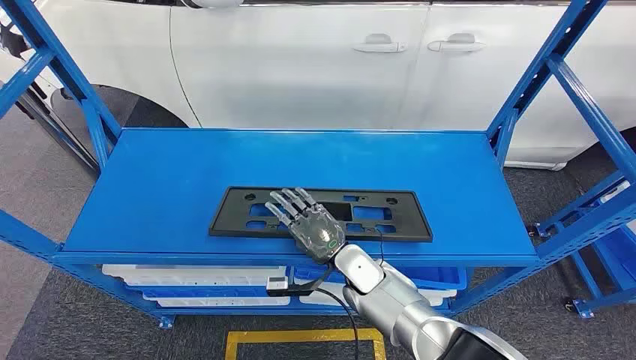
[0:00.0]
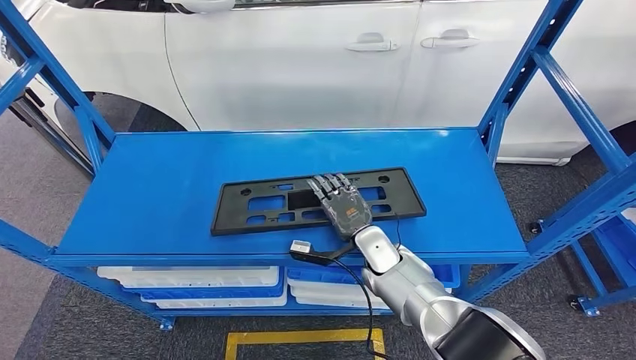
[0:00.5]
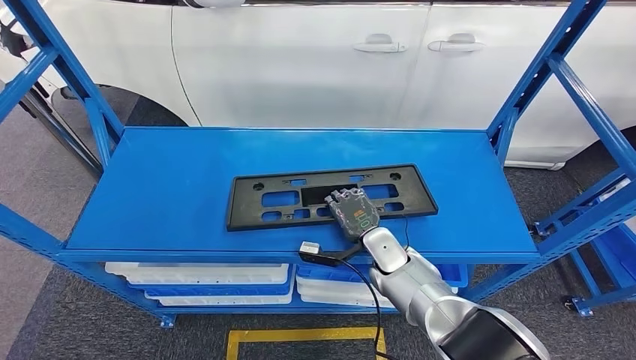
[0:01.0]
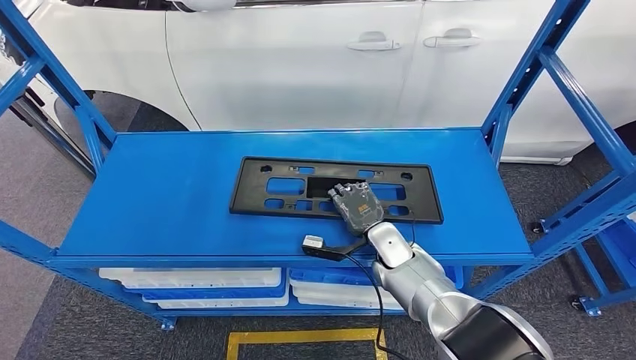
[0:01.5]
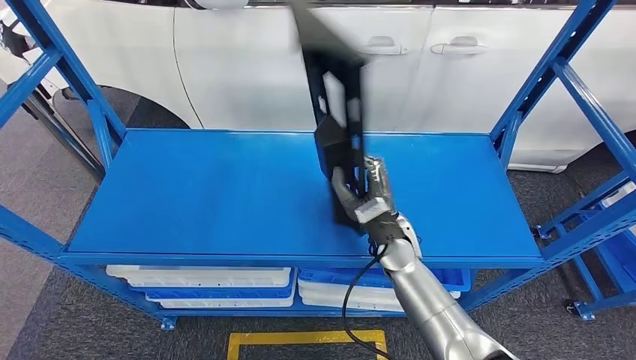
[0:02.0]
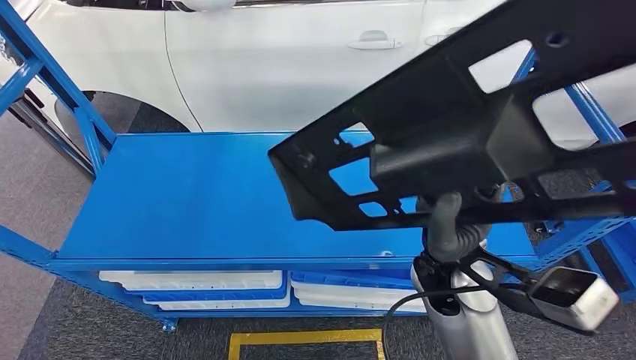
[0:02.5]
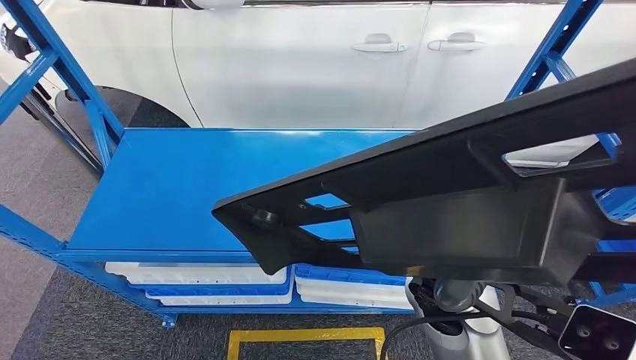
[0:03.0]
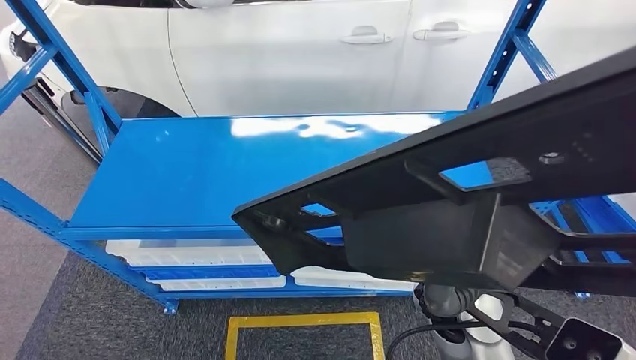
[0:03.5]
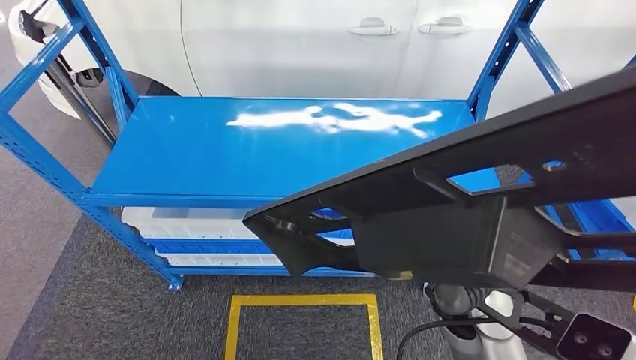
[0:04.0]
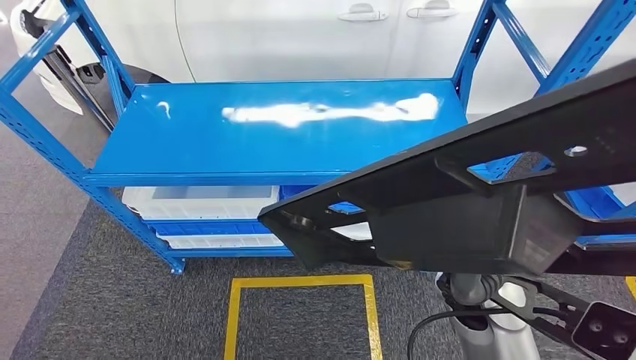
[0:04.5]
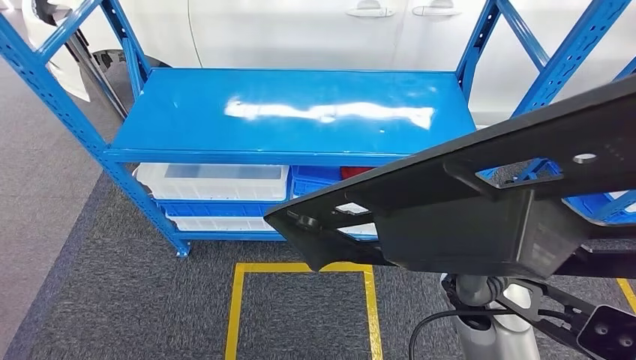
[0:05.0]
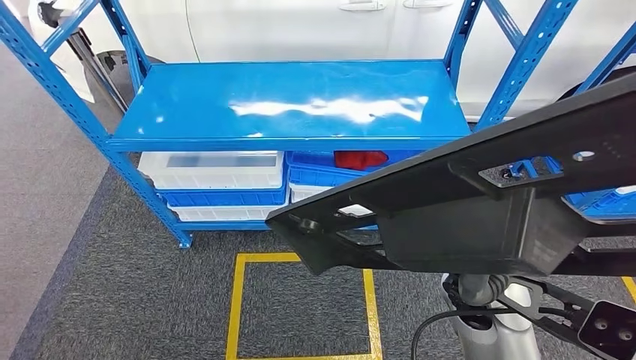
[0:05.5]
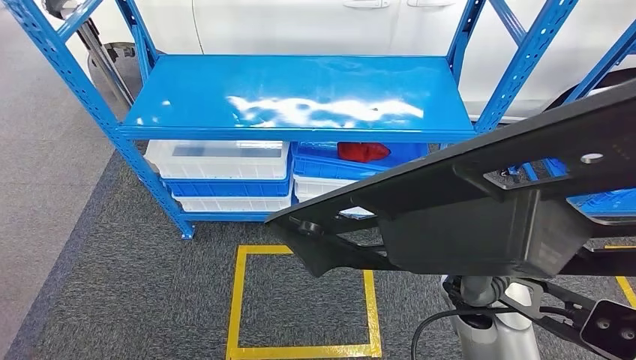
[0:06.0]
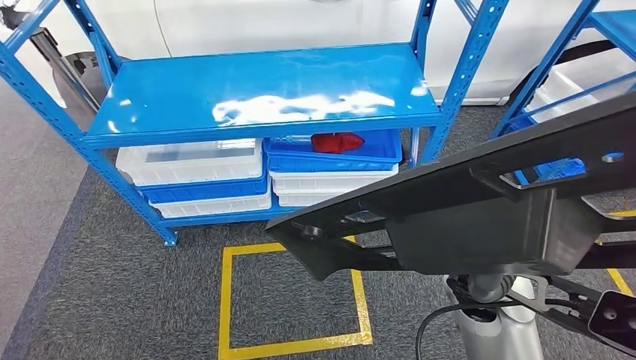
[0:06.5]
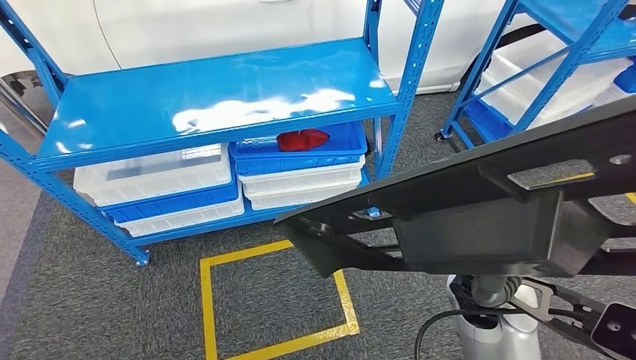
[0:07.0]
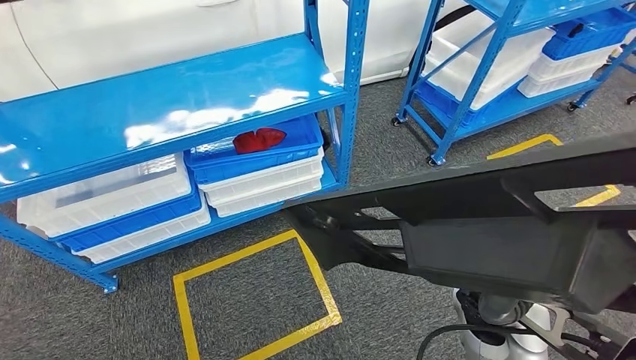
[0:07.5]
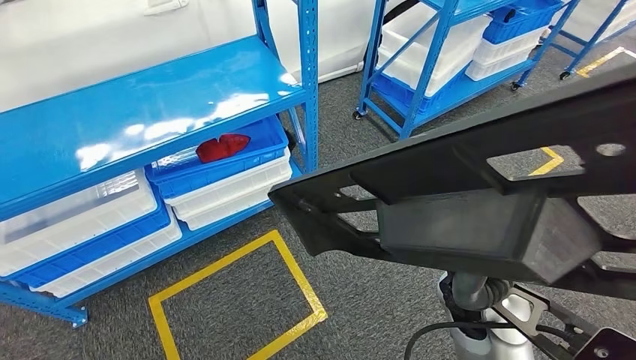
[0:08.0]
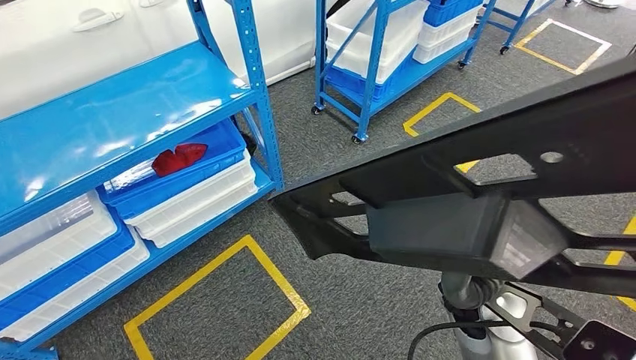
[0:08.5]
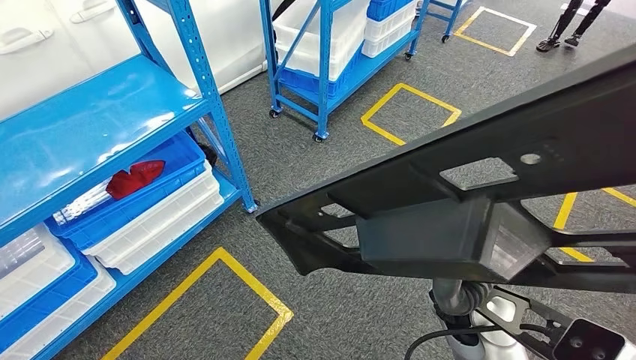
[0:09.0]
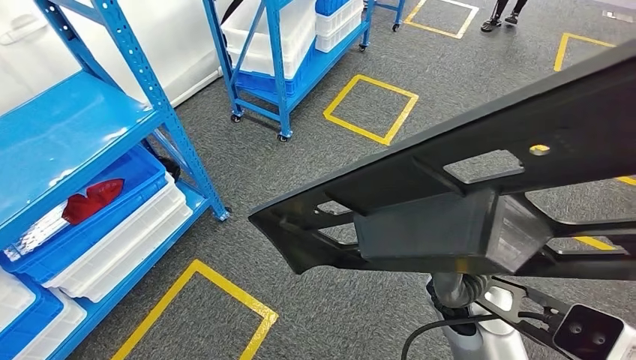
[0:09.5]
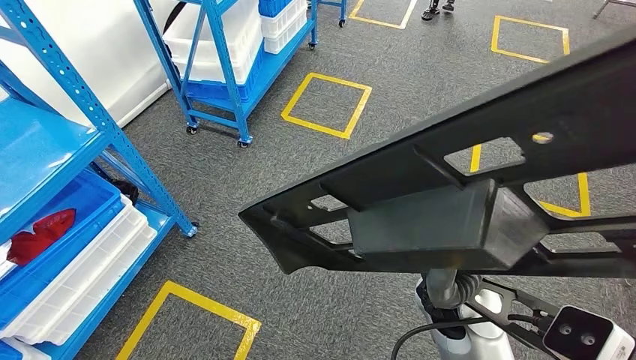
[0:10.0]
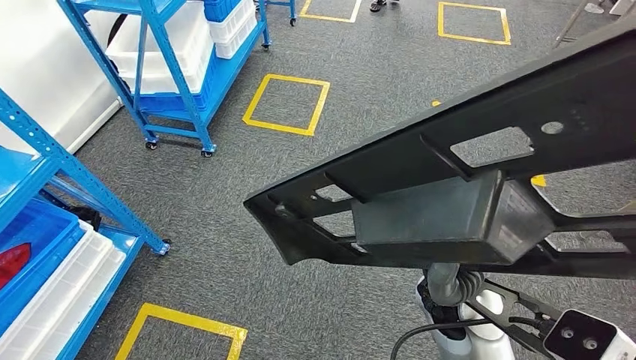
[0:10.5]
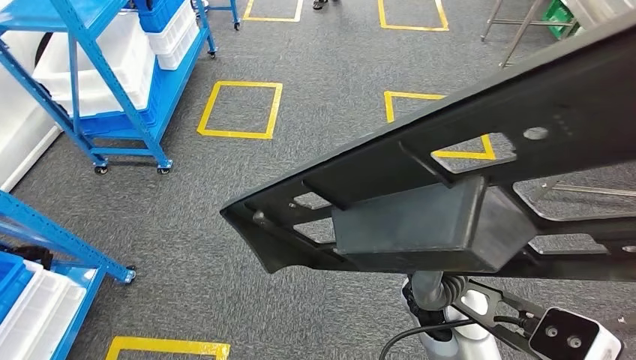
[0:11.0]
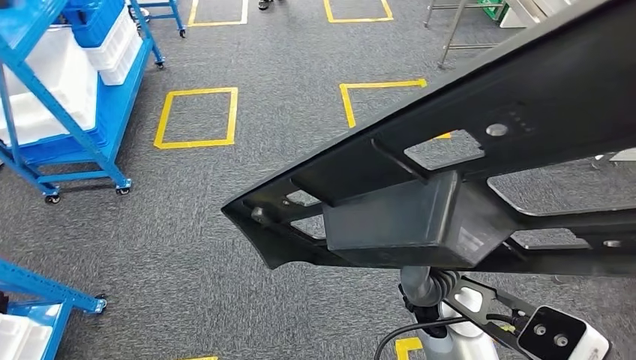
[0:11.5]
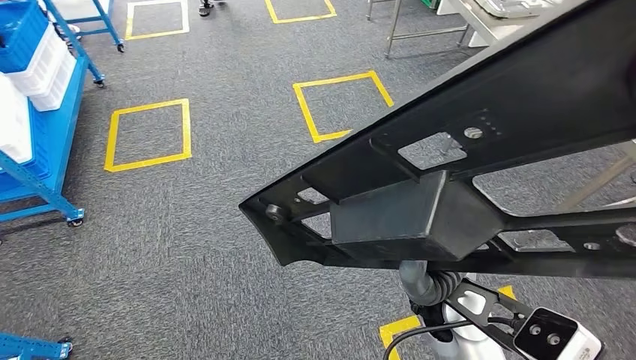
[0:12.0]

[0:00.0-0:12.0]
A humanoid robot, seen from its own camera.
Step, 0:00.0 to 0:04.0: Pick up the large material from the shelf.

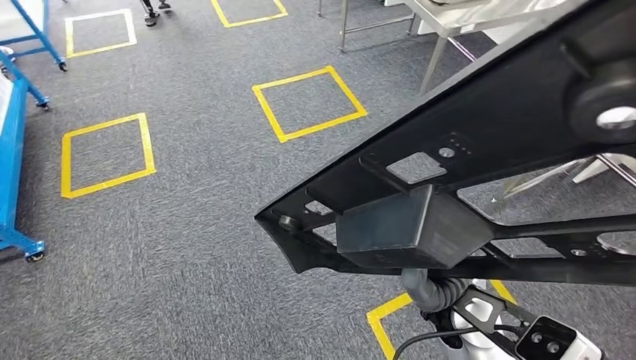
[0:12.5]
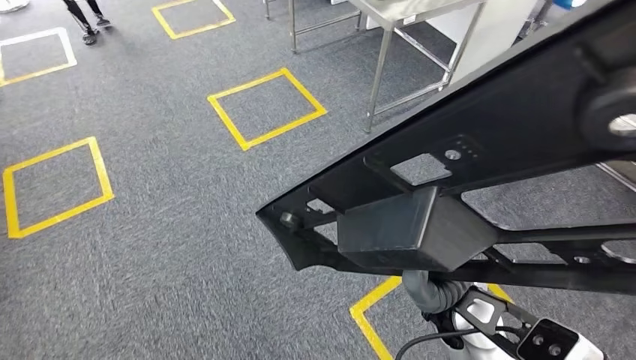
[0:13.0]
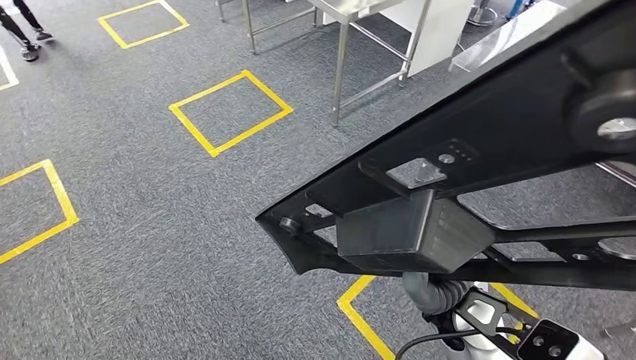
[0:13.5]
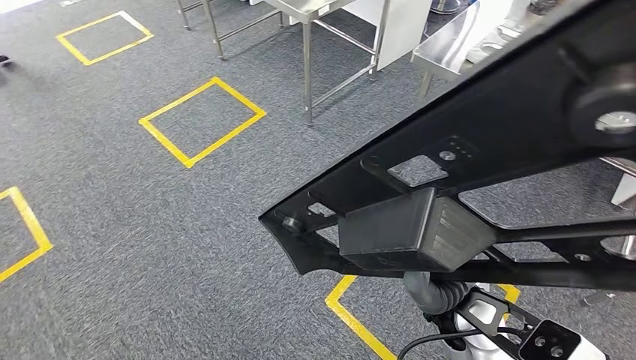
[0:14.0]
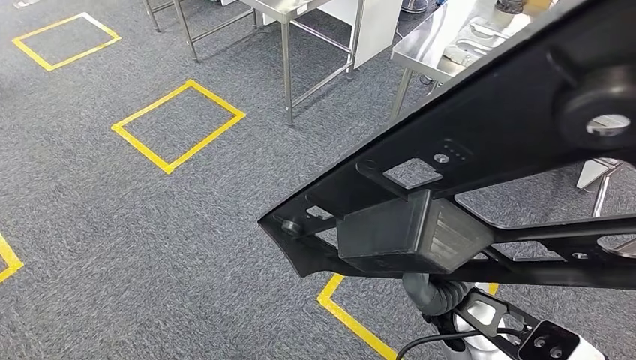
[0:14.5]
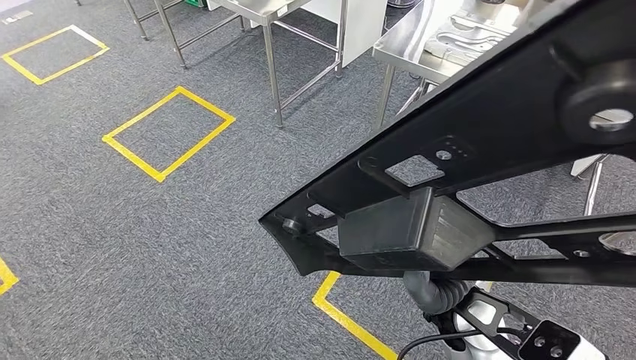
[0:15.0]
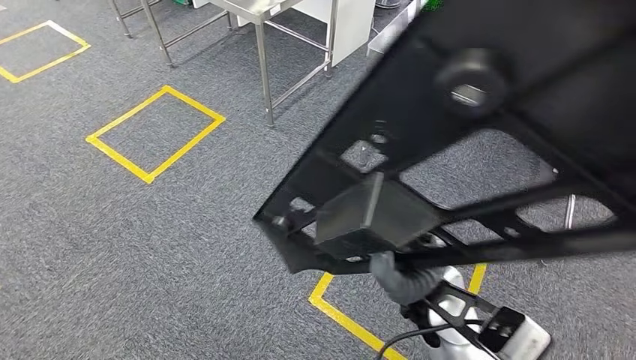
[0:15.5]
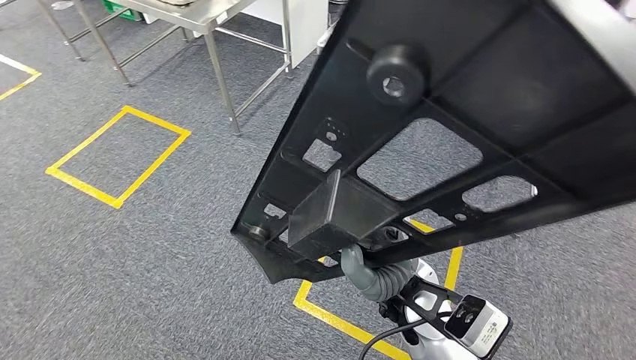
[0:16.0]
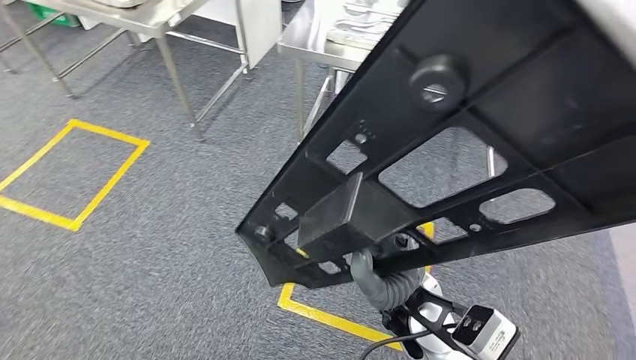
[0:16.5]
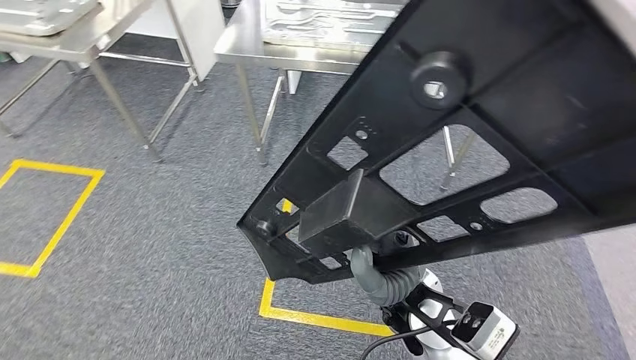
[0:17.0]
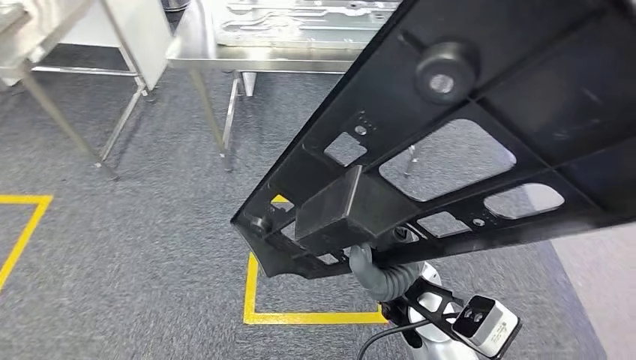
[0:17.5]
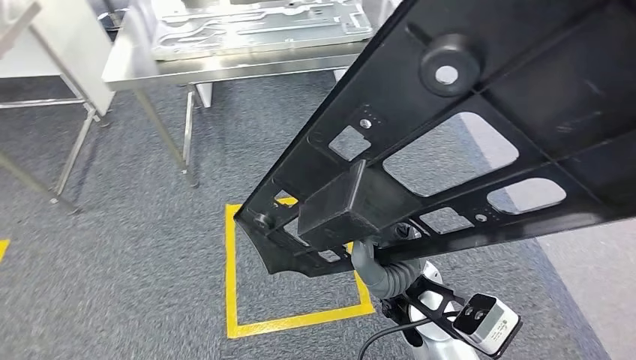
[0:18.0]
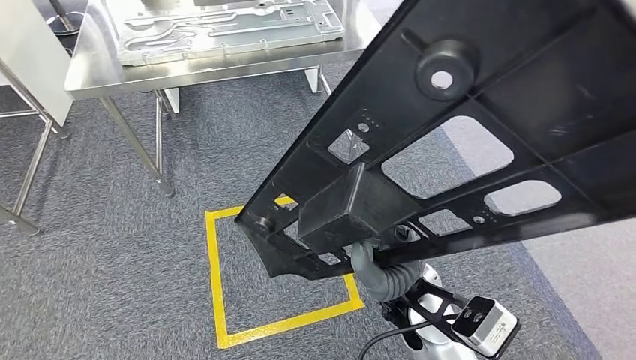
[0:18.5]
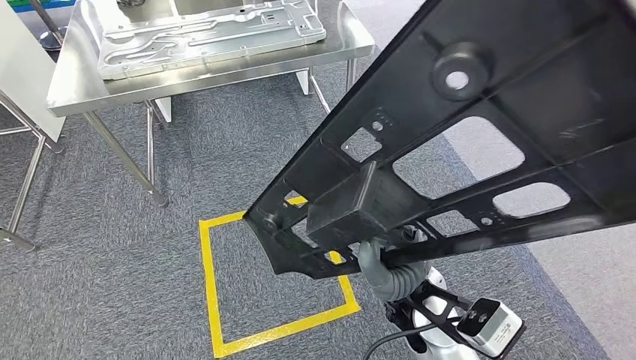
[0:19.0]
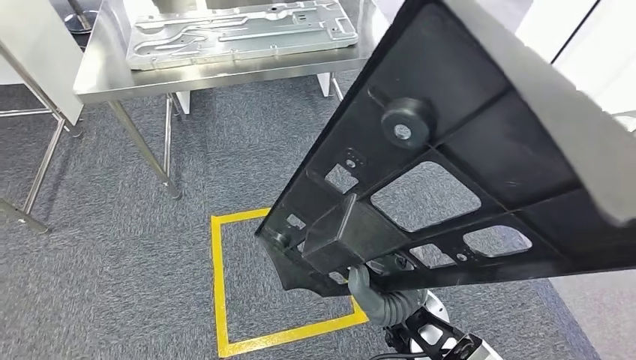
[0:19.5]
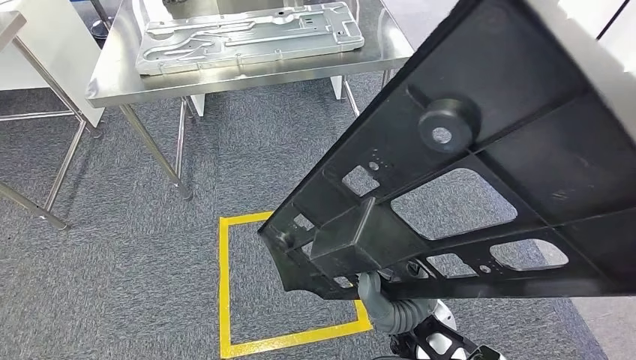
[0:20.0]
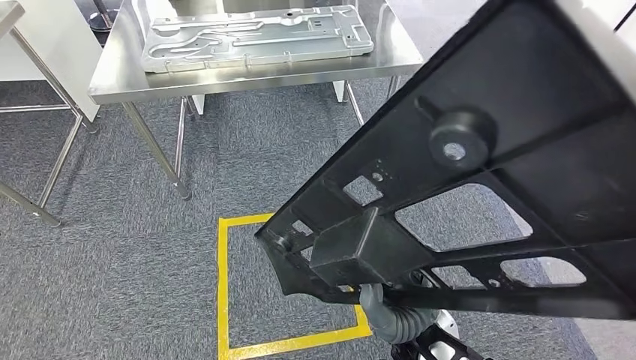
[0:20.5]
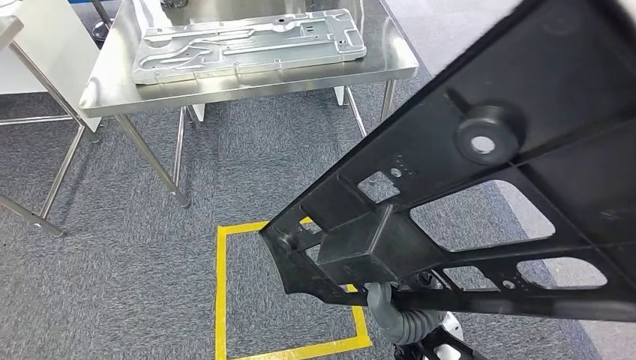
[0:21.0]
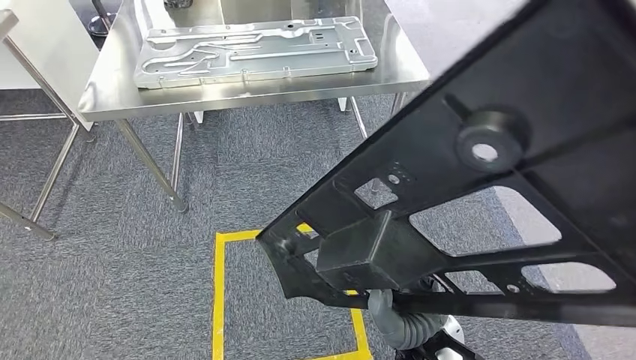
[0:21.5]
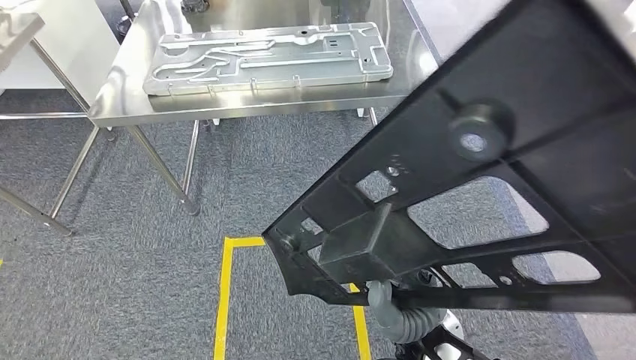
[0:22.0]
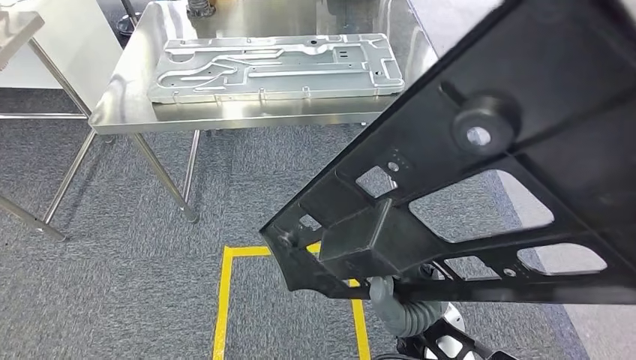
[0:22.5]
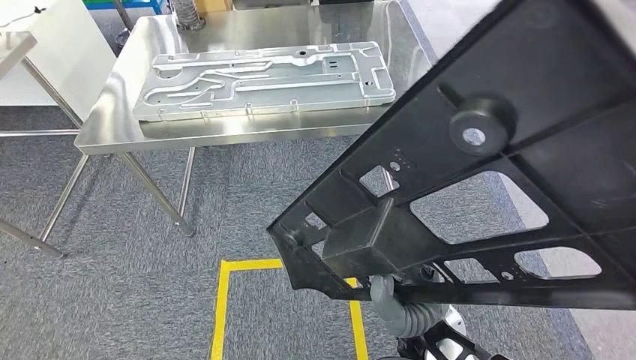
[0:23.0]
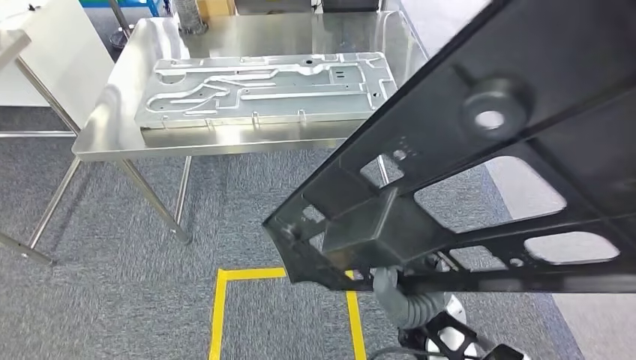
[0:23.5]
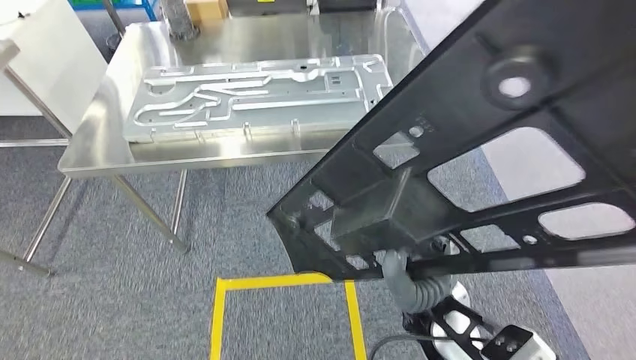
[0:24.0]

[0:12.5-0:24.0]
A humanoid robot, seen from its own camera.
Step, 0:12.5 to 0:21.5: Move the large material to the front of the workbench.
